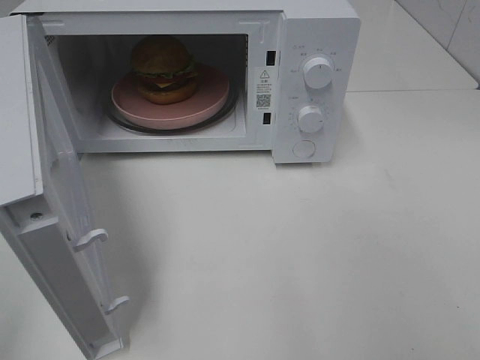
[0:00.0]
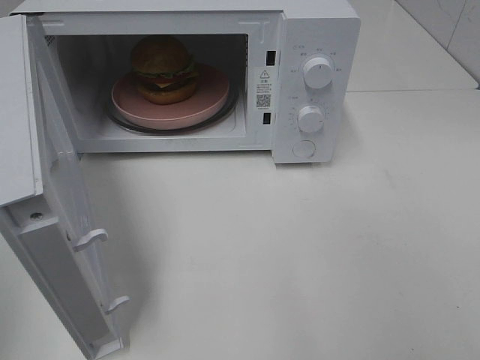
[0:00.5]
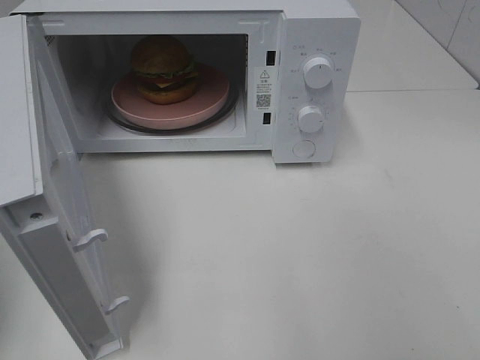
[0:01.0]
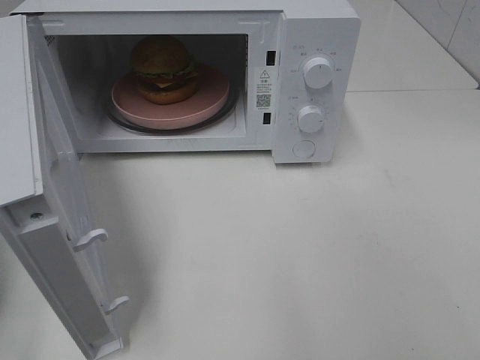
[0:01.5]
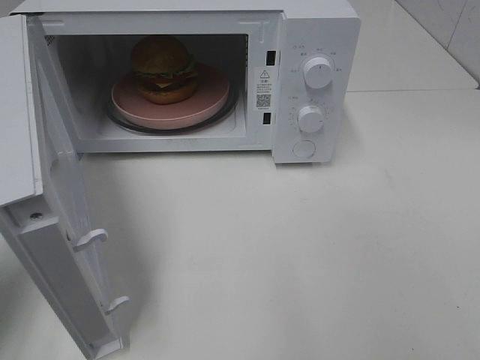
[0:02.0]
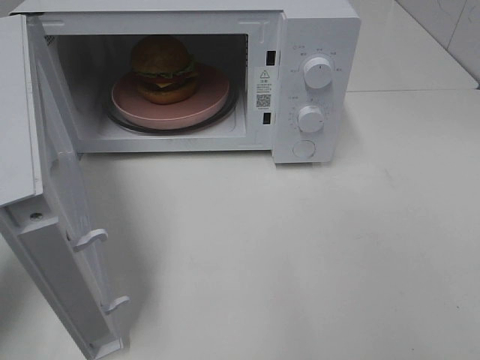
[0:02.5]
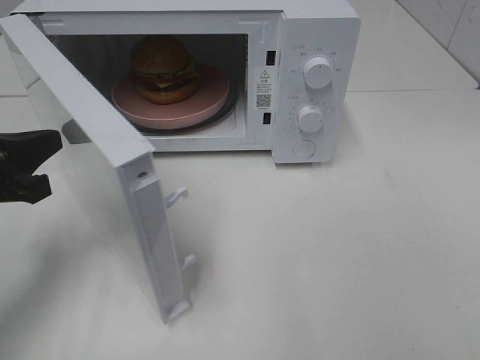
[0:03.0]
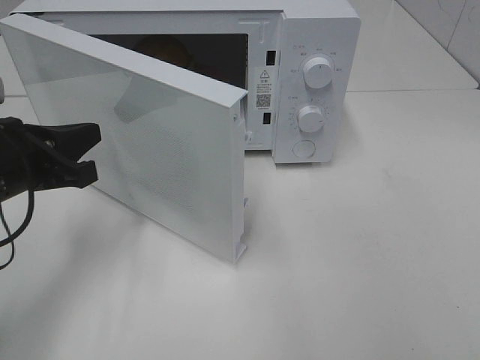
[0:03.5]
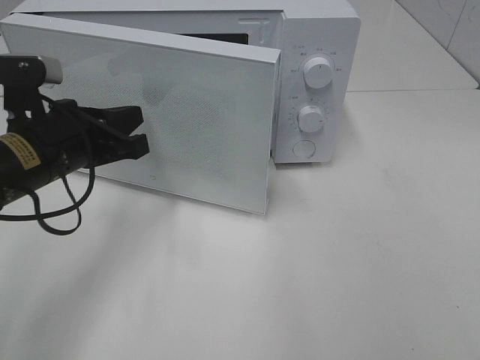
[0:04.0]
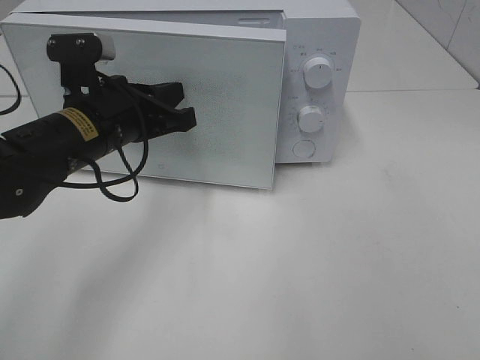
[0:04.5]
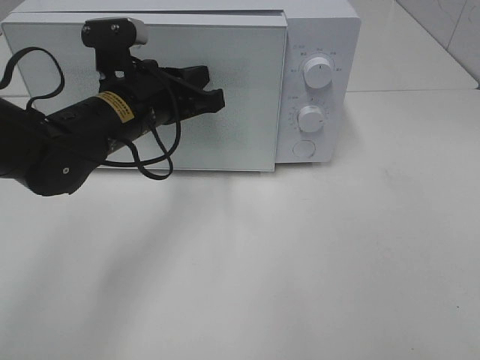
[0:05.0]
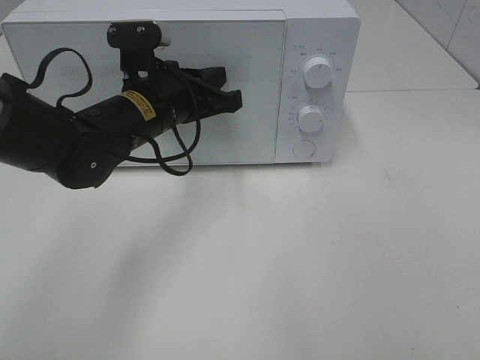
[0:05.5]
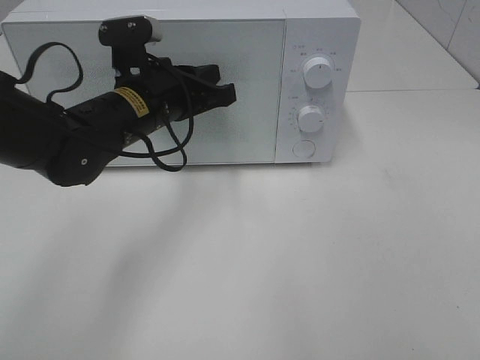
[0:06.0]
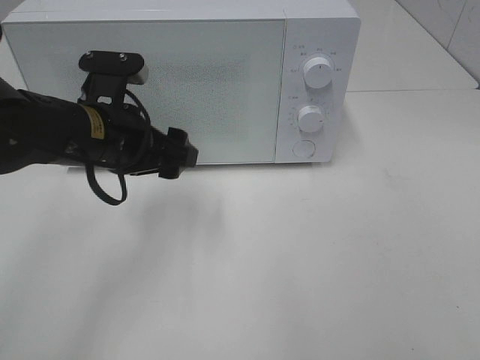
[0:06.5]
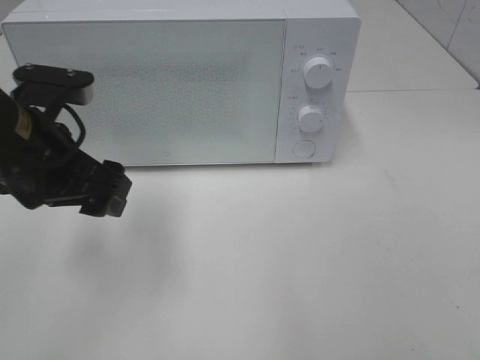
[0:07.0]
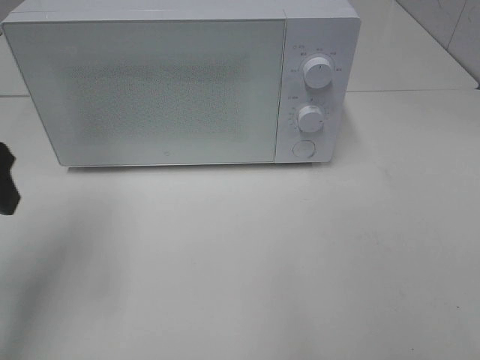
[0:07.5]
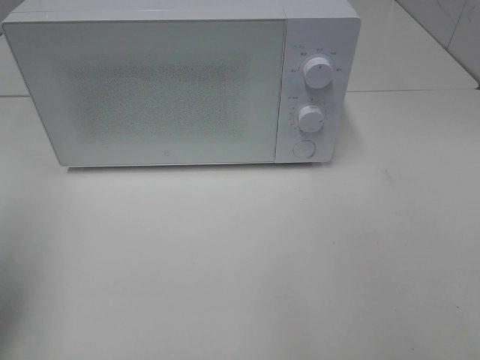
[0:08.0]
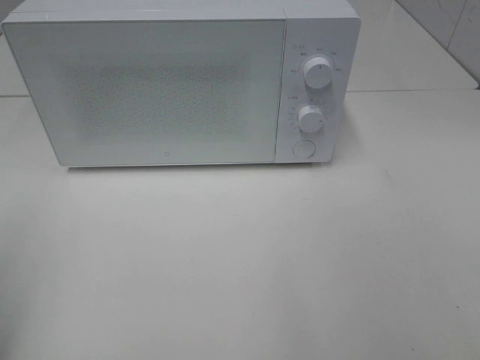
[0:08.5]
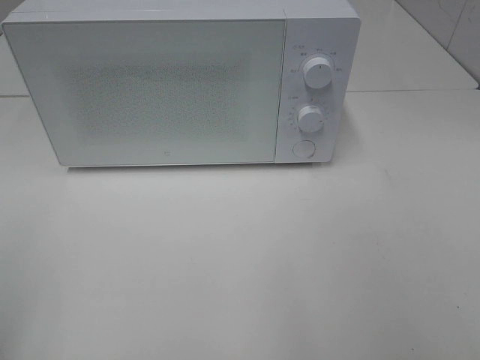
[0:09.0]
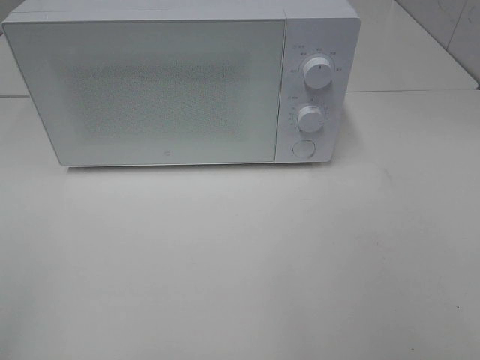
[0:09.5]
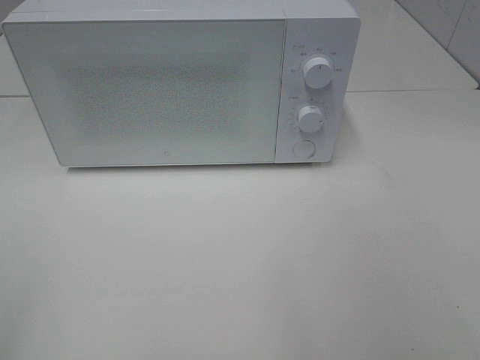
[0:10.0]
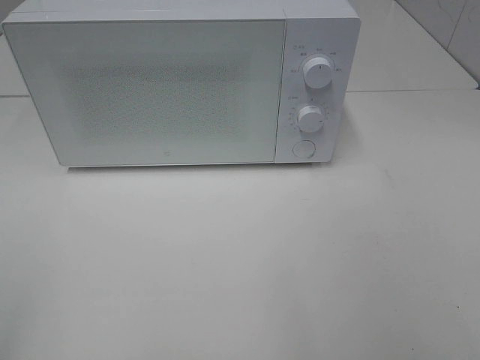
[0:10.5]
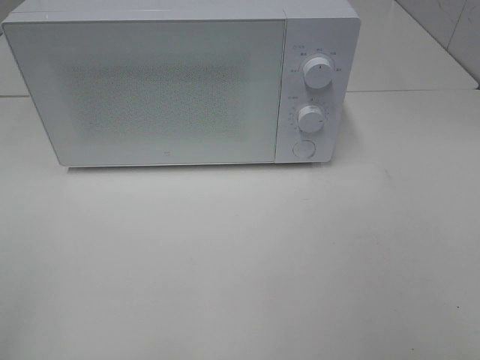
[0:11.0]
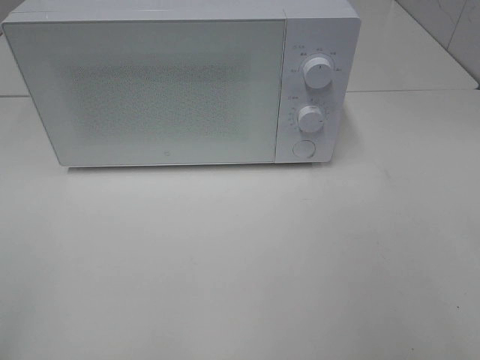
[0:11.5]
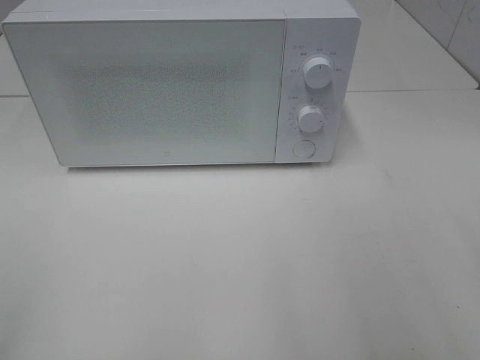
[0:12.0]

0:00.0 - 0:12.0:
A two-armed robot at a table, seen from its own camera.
Task of the whole recording: Heat the burger.
Step, 0:00.0 - 0:06.0: Left hand: close the microwave door.
0:00.0 - 0:02.0: The left gripper is displaced forward and downward by about 20 cm, and closes up.
0:02.0 - 0:04.0: The left gripper shifts approximately 15 cm to the right and forward.
0:04.0 - 0:06.0: The left gripper travels to the right and forward by roughly 10 cm.
0:06.0 - 0:08.0: The left gripper goes about 30 cm to the left, backward and upward, and opens its fingers.
0:08.0 - 0:10.0: The left gripper is displaced backward by some 20 cm.

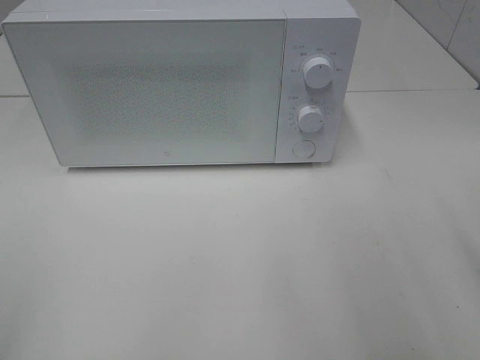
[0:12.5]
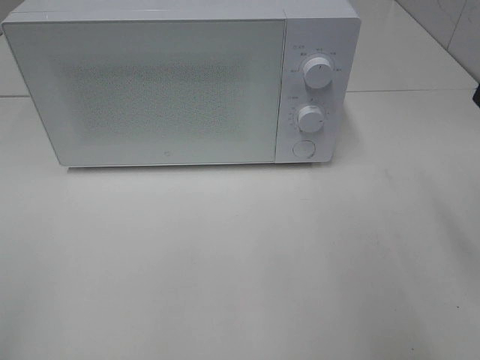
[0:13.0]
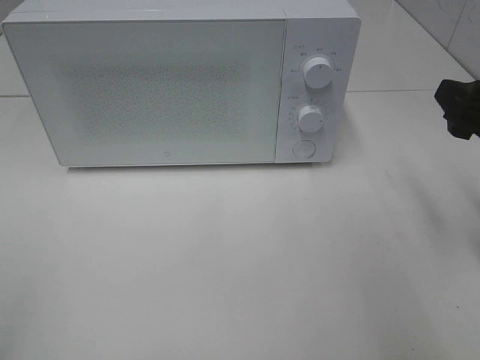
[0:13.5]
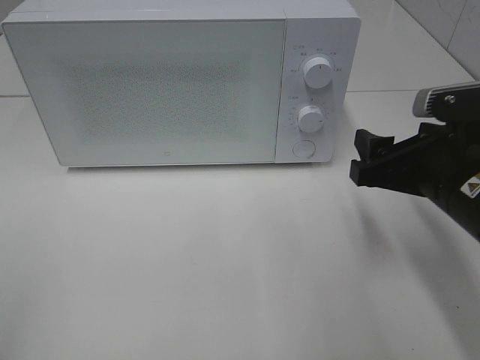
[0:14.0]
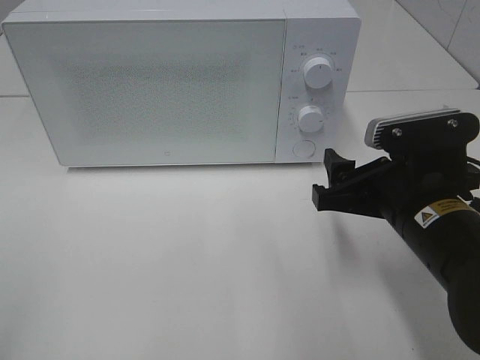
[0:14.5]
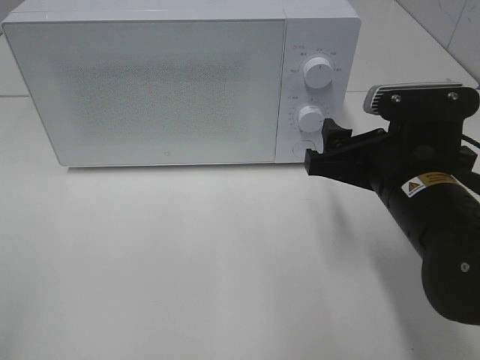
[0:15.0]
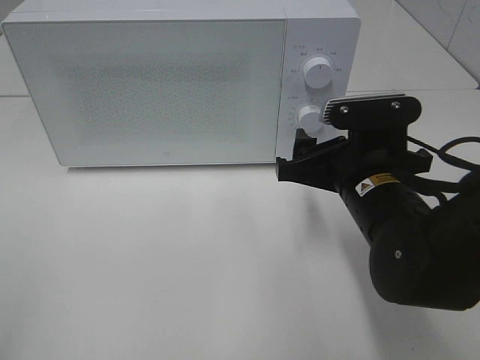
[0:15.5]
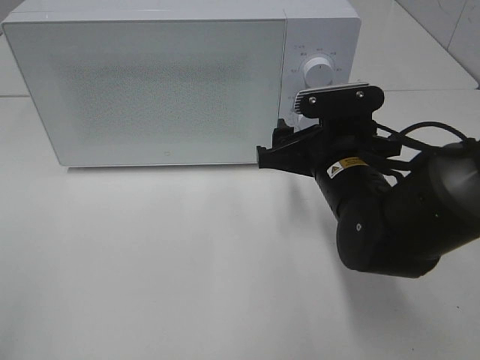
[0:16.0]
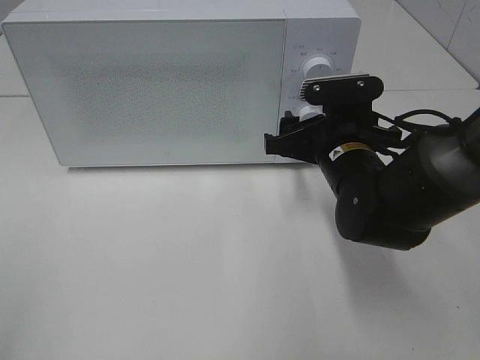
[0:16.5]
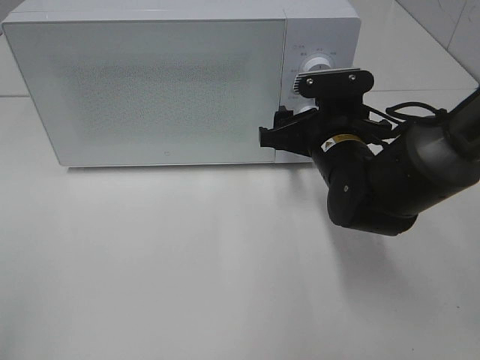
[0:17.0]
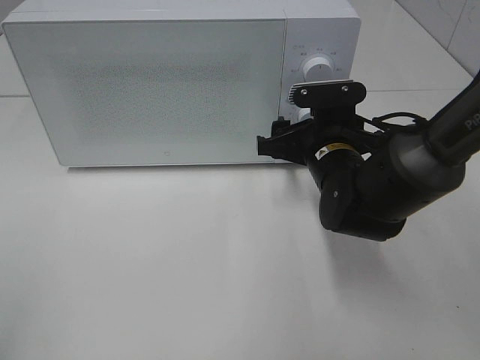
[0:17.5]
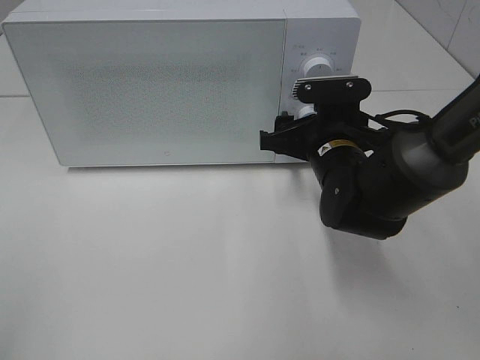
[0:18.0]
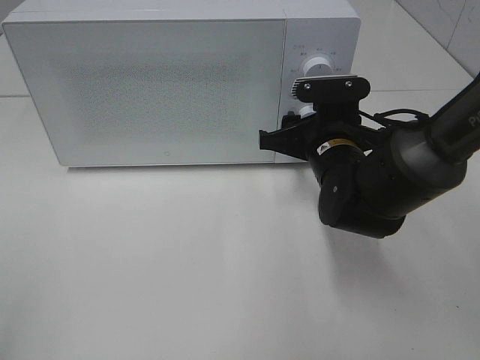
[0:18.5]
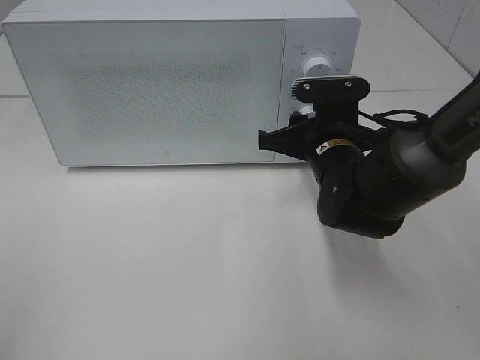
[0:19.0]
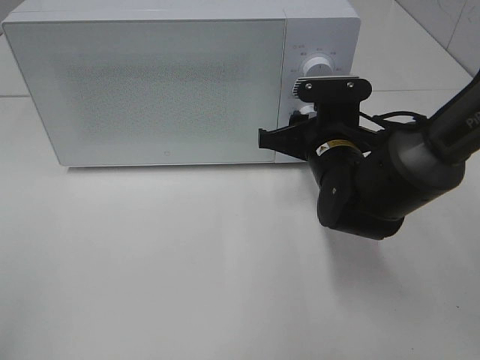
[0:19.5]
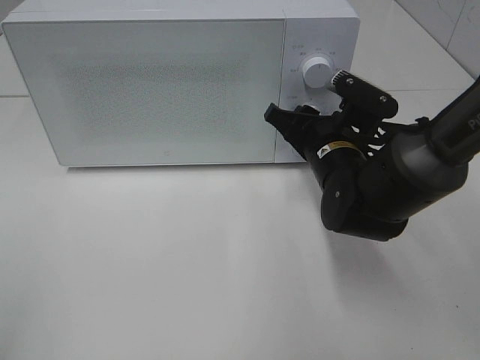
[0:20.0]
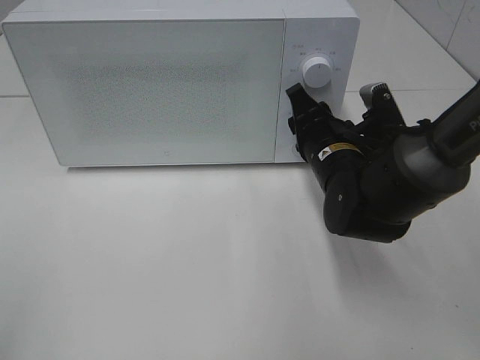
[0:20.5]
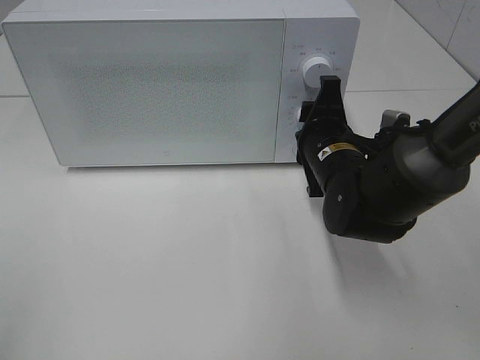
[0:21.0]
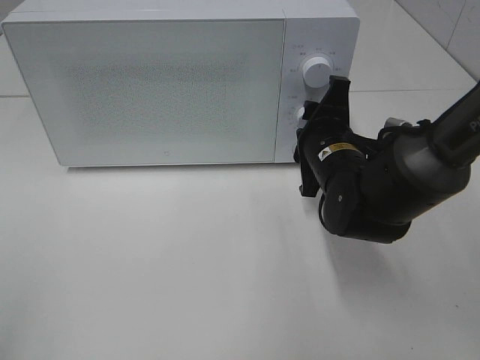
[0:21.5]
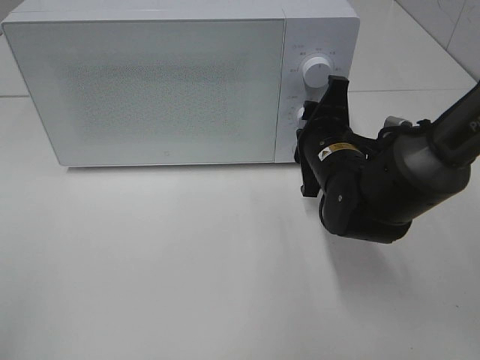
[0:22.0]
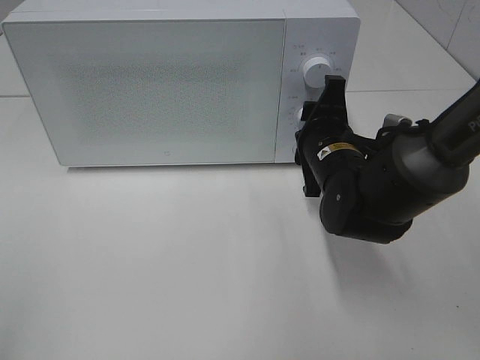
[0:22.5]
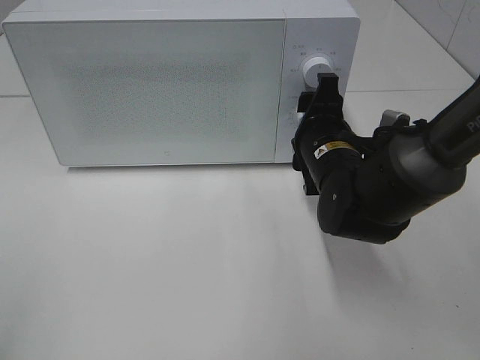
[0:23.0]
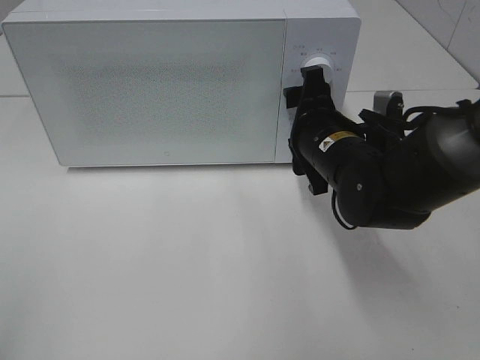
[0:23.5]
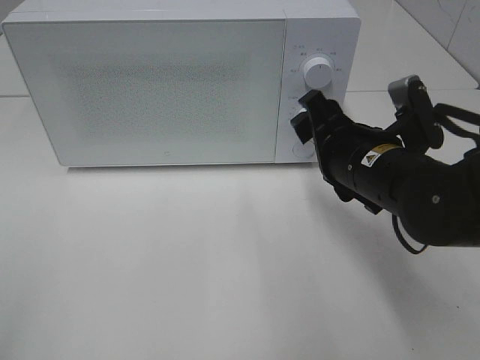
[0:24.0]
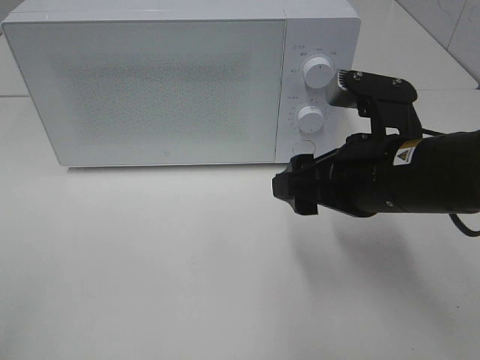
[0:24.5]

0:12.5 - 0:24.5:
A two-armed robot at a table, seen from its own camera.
Task of the whole recording: Heat the burger.
Step, 0:12.5 - 0:22.5: Right hand: twist timer button.
0:12.5 - 0:14.5: The right gripper moves to the left, downward and forward, approximately 15 cm.
0:14.5 - 0:16.5: The right gripper moves forward, approximately 10 cm.
0:16.5 - 0:18.5: The grippers make only small movements.
0:22.5 - 0:24.5: The right gripper heads backward and upward, covering approximately 15 cm.

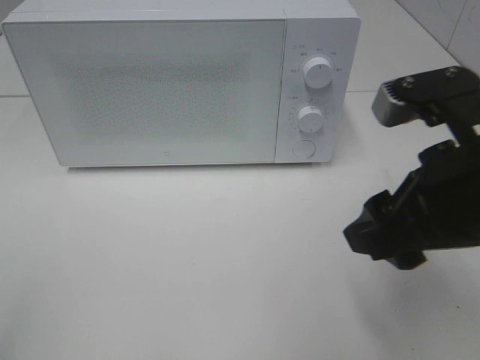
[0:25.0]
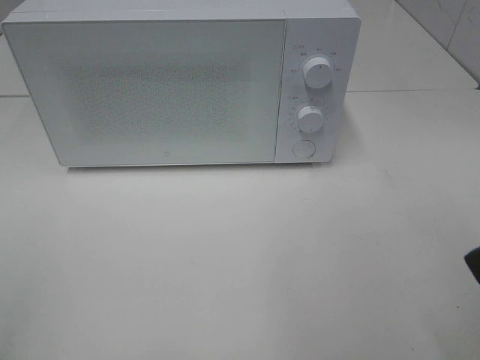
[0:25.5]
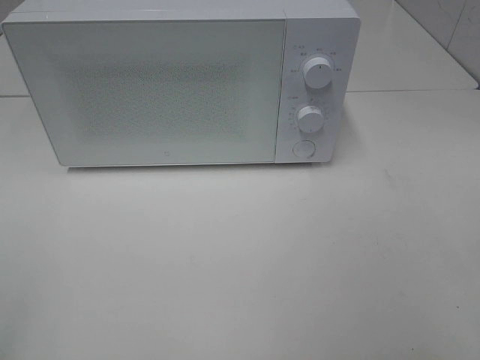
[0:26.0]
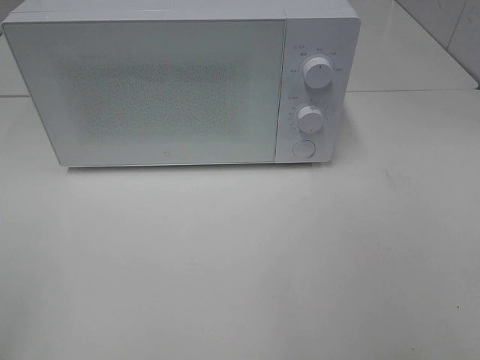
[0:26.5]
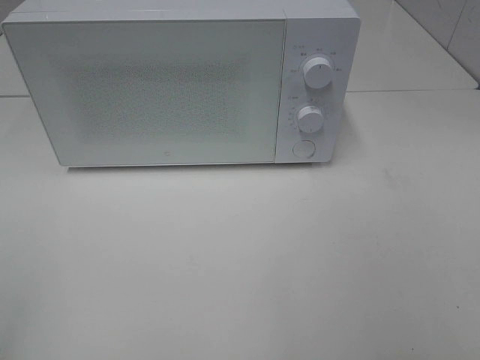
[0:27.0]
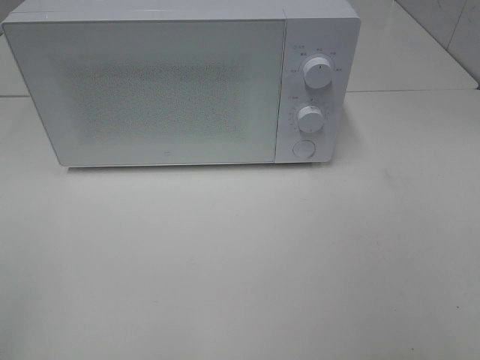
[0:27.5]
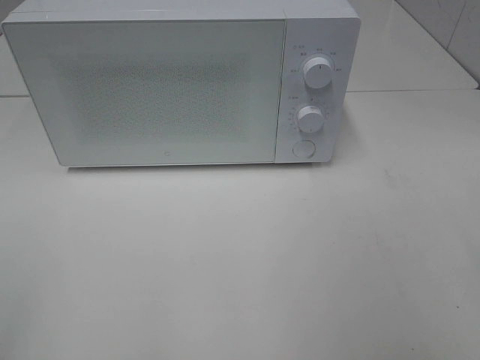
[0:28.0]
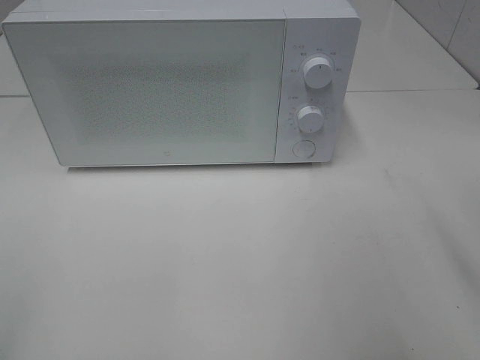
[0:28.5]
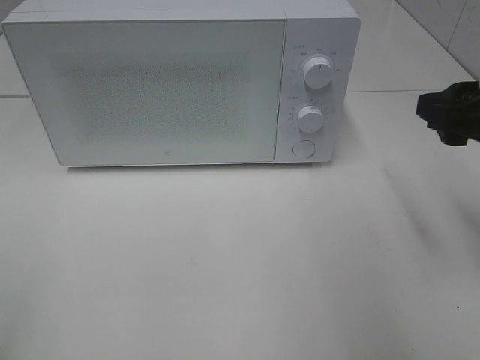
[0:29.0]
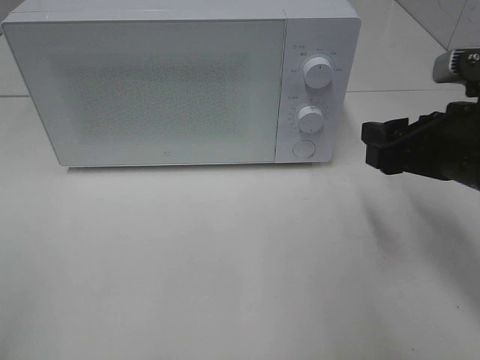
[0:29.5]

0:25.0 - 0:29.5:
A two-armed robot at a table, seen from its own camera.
Task of the whole recording: Heat the burger.
0:25.0 - 0:27.0: The right gripper is displaced backward and to the right by about 20 cm.
0:27.0 - 0:29.5: The right gripper travels forward by roughly 25 cm.
